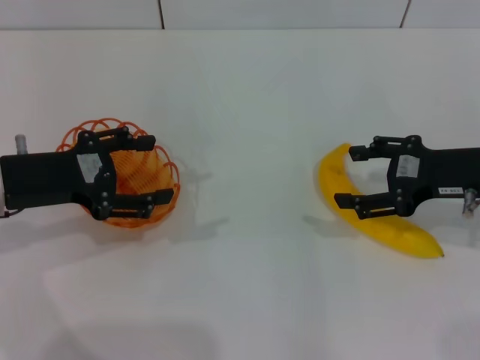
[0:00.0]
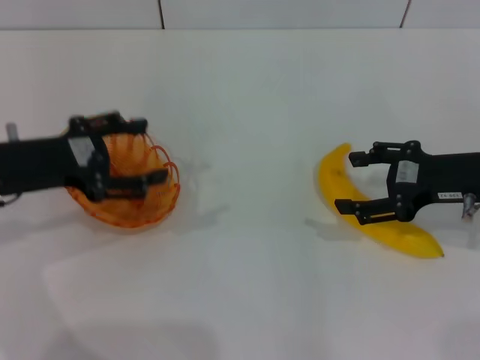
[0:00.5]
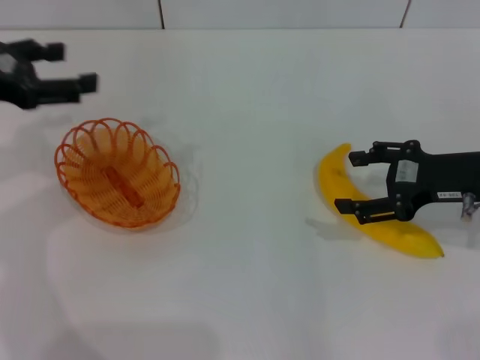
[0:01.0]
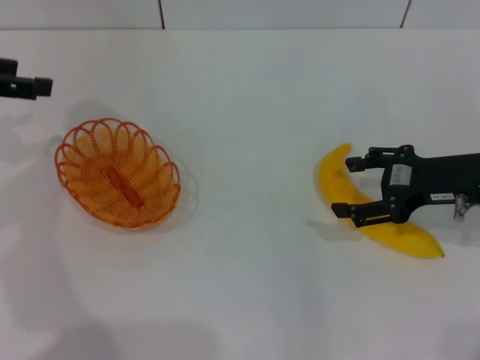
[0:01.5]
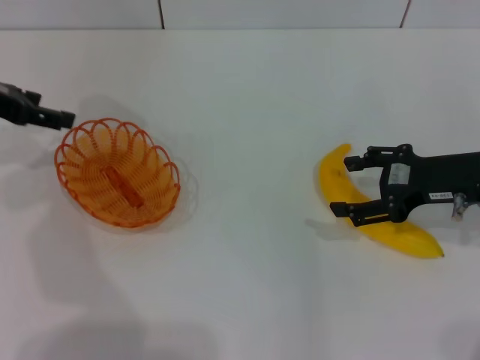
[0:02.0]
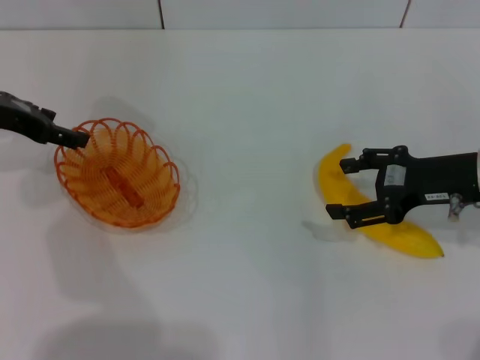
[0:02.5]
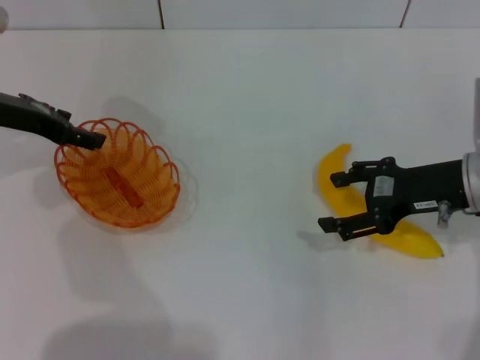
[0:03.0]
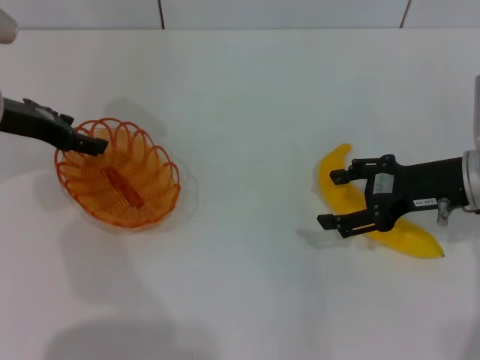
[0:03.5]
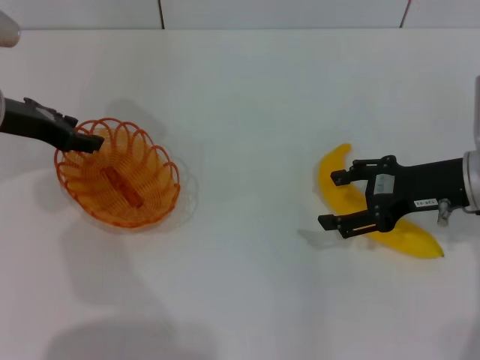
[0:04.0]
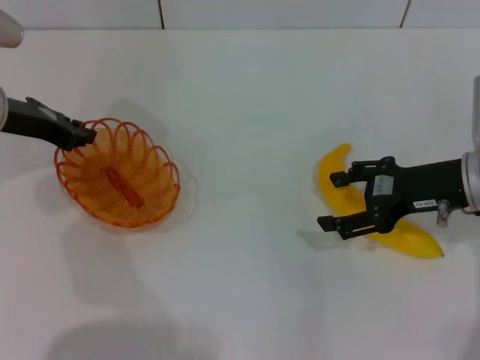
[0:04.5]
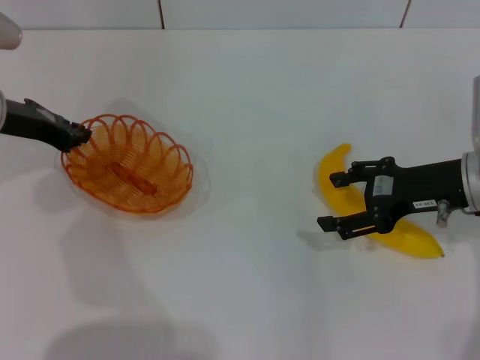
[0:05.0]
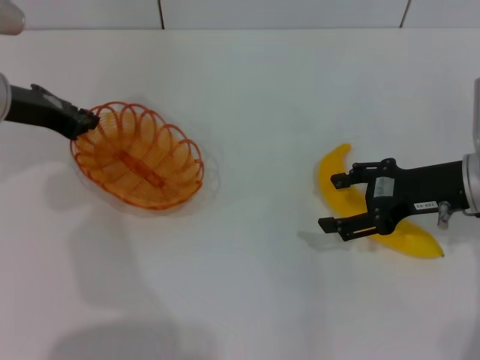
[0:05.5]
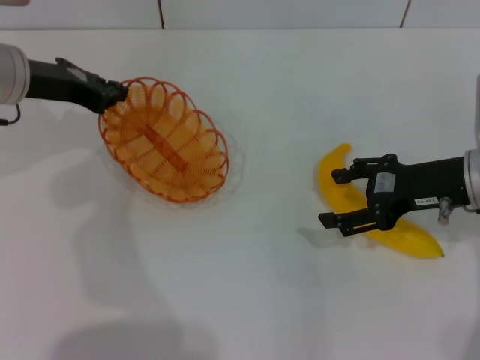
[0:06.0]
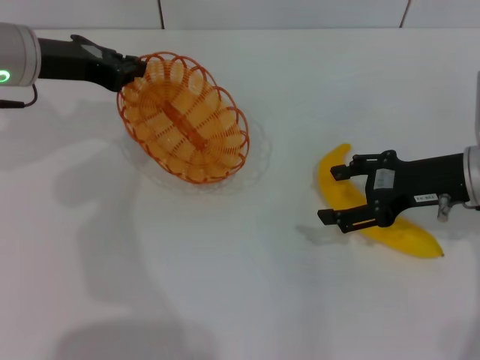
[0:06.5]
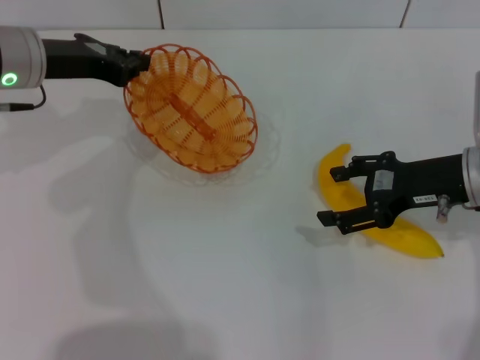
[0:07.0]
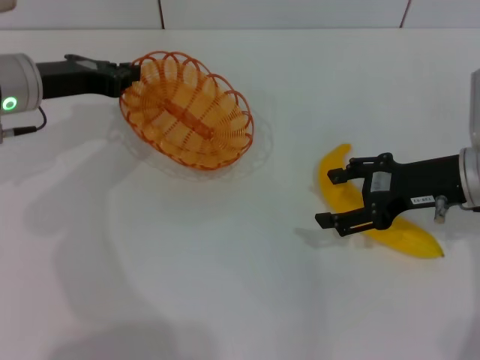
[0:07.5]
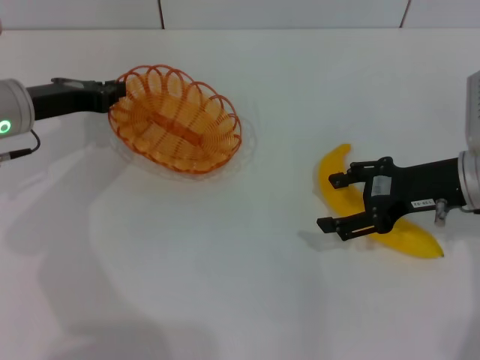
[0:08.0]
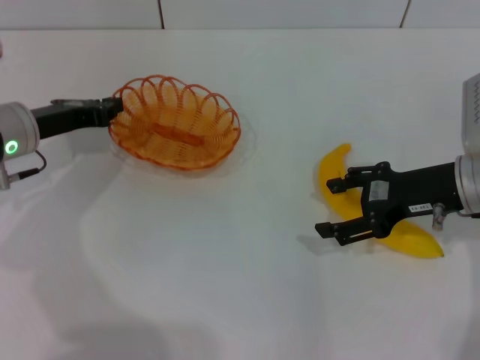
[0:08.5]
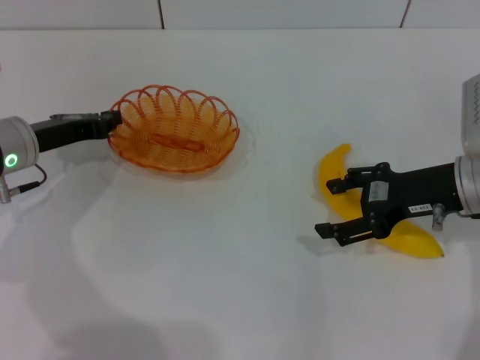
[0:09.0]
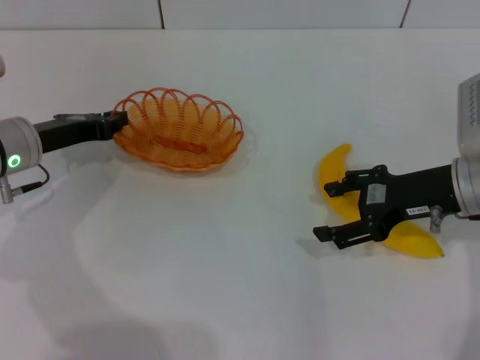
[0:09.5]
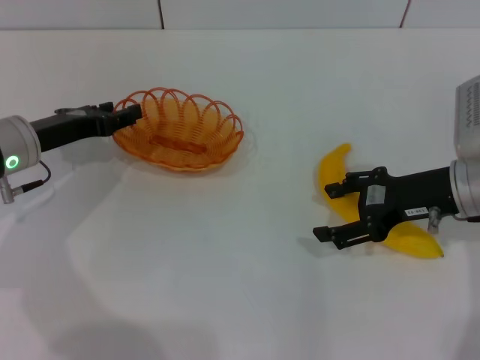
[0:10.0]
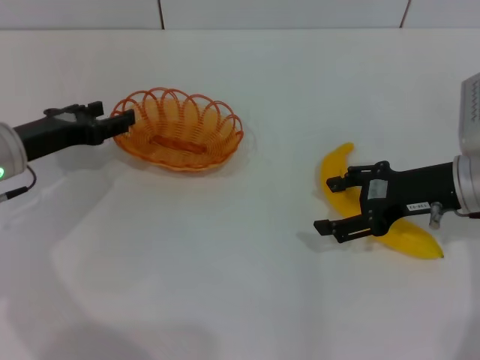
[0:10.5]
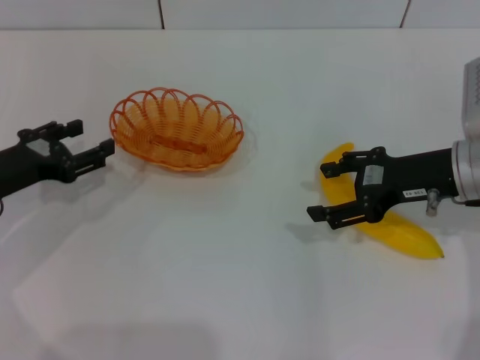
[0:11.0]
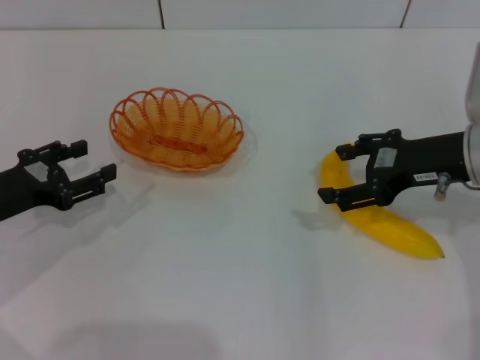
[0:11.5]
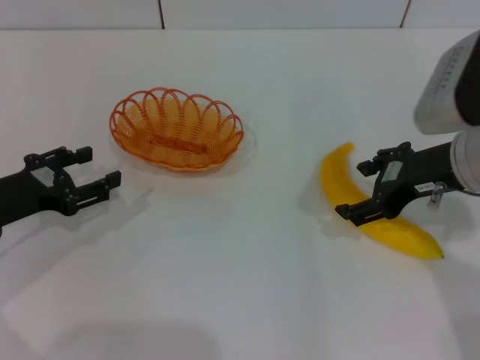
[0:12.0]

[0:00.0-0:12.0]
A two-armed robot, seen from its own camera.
Step, 0:00.0 to 0:06.0: Pick up the basket with the left gripper.
Step, 0:06.5 to 0:10.5: Place the basket in the center of view with the left gripper.
0:00.0 to 0:02.0: The left gripper is displaced forward, upward and to the left by some 10 cm.
0:02.0 to 0:04.0: The left gripper shifts by roughly 5 cm.
0:04.0 to 0:06.0: The left gripper closes up.
0:06.0 to 0:08.0: The left gripper goes some 5 cm downward.
0:08.0 to 0:10.0: The left gripper opens.
0:10.0 to 0:12.0: The right gripper goes approximately 5 cm upward. Meanwhile the left gripper shifts approximately 10 cm backward, and opens up.

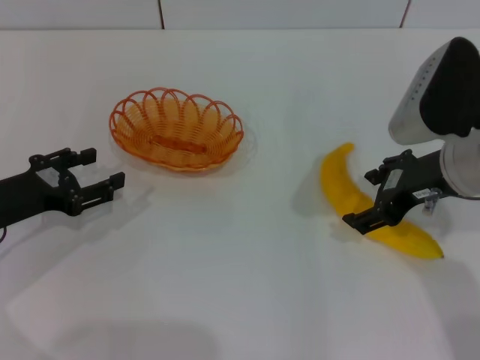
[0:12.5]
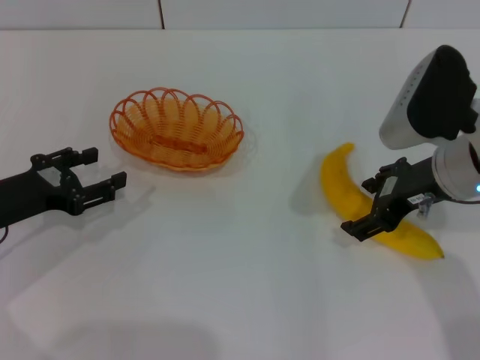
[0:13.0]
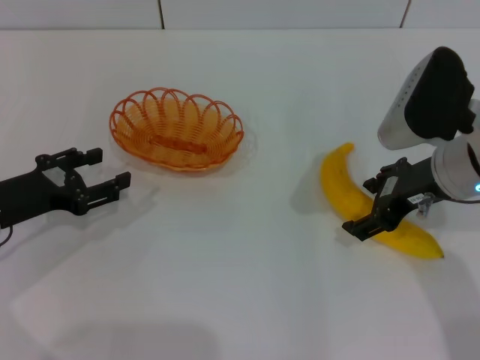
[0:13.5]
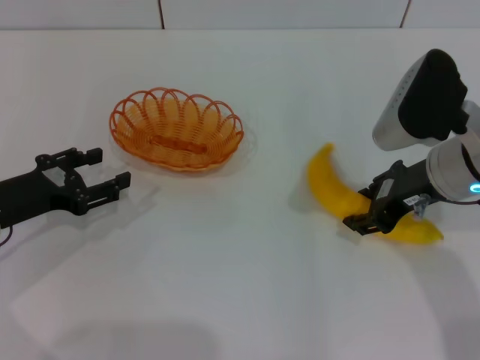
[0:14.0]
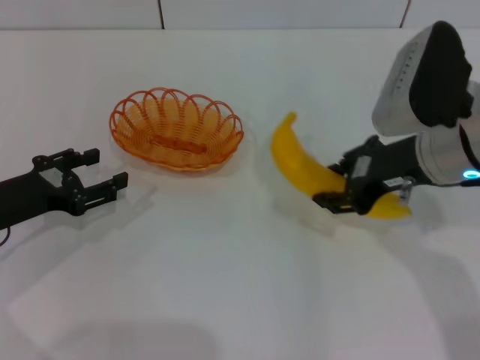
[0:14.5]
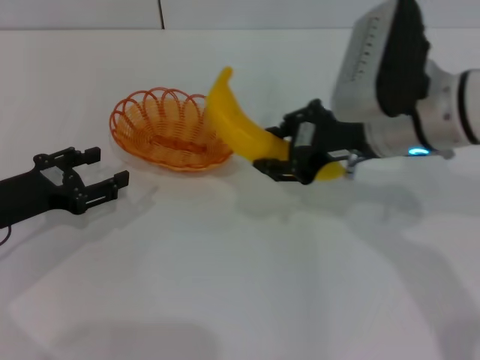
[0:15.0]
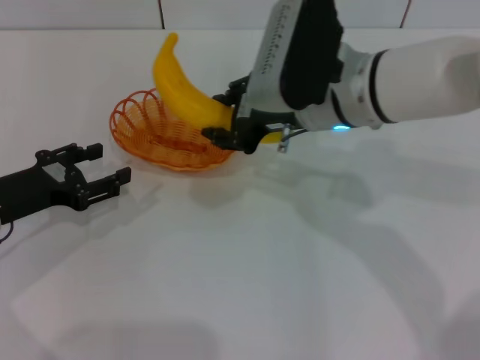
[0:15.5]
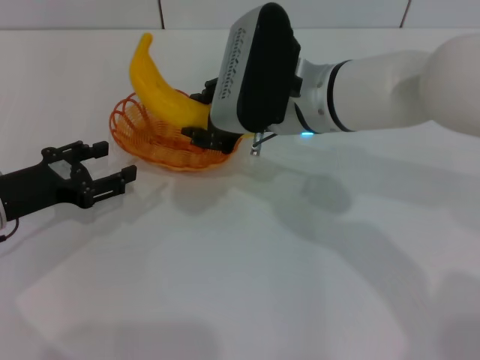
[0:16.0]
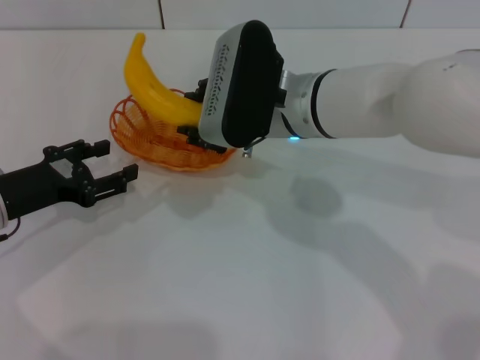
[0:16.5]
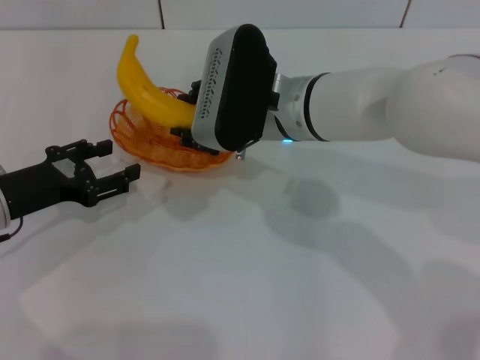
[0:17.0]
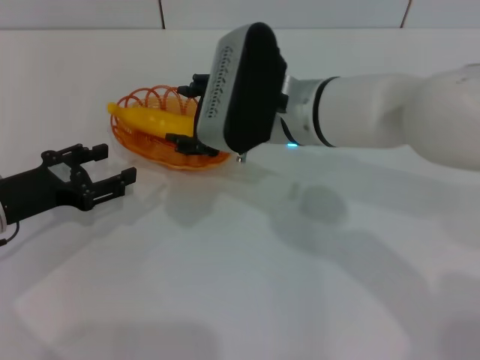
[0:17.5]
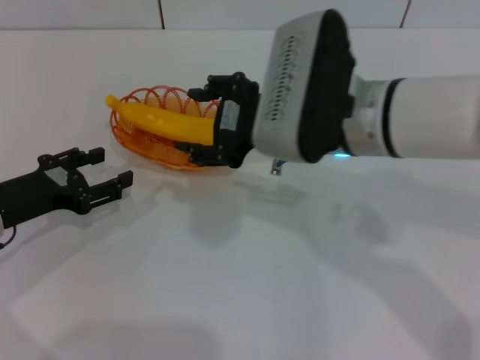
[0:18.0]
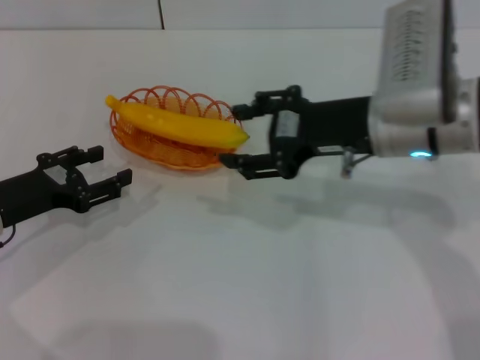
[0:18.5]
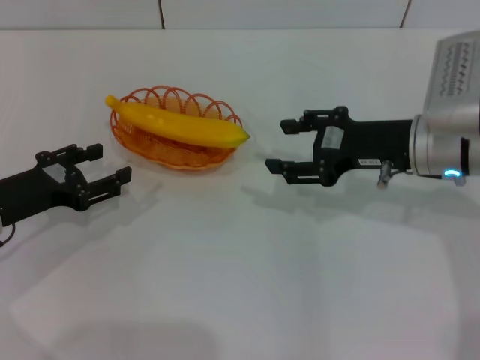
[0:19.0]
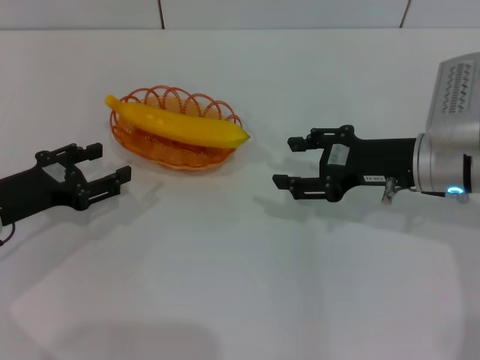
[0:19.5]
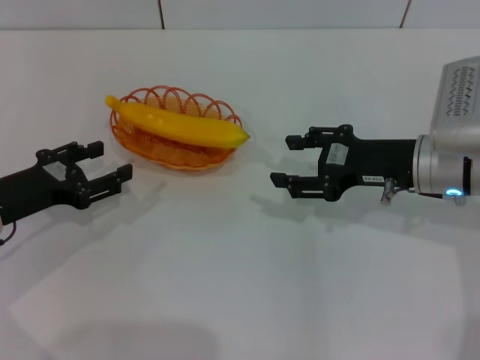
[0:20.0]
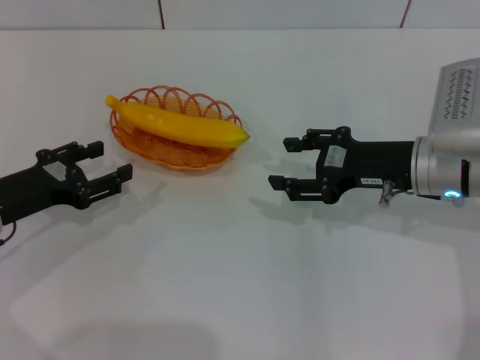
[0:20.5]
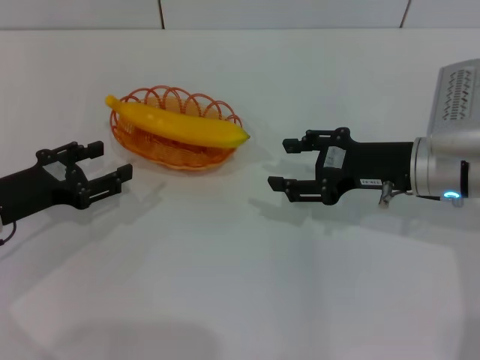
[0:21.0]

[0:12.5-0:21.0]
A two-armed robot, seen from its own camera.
Step, 0:12.5 to 0:14.5: Pick up the banana with the right gripper.
Step, 0:15.0 to 0:18.5: Place the banana into the basket with the right gripper.
0:12.5 to 0:14.5: The right gripper closes up.
0:14.5 to 0:16.5: The right gripper is displaced to the left and forward by approximately 15 cm.
0:16.5 to 0:19.0: The right gripper is displaced to the right by roughly 15 cm, and opens up.
0:19.0 to 0:21.0: The grippers make only small movements.
